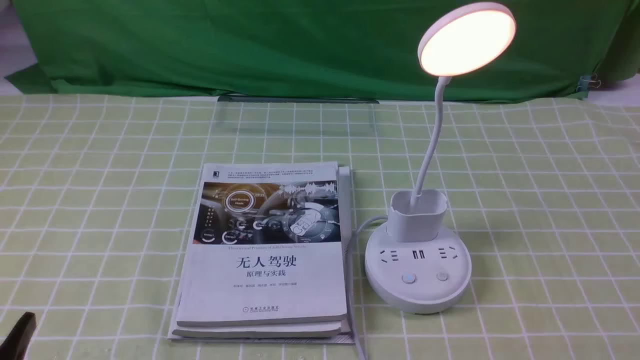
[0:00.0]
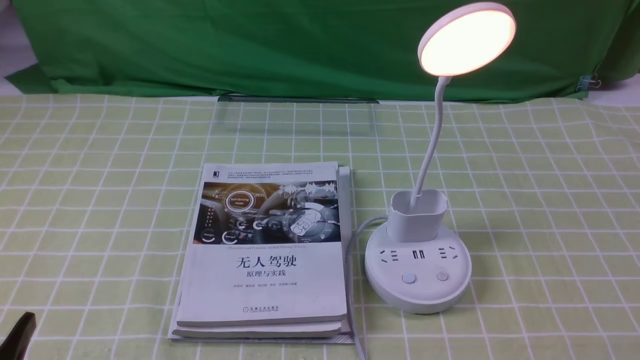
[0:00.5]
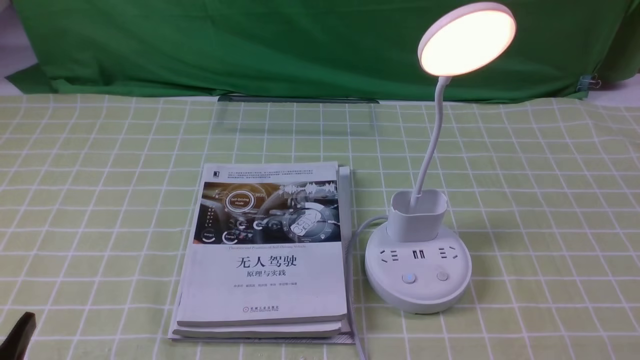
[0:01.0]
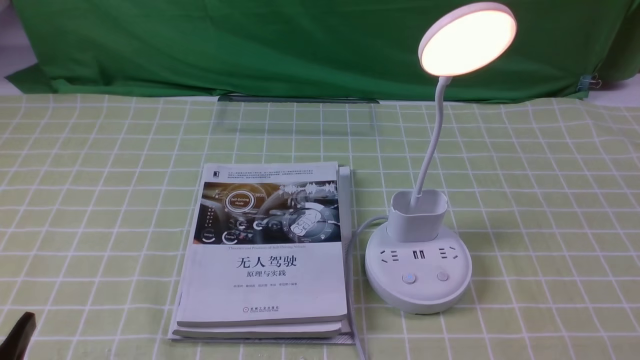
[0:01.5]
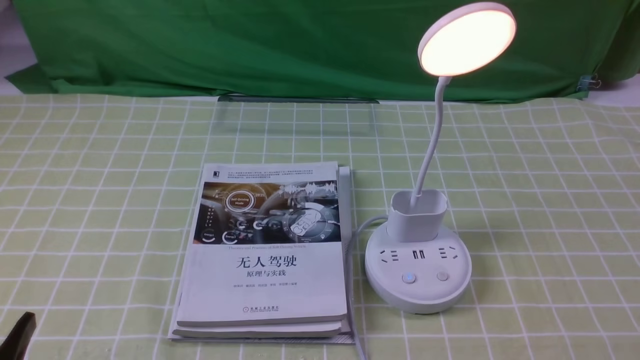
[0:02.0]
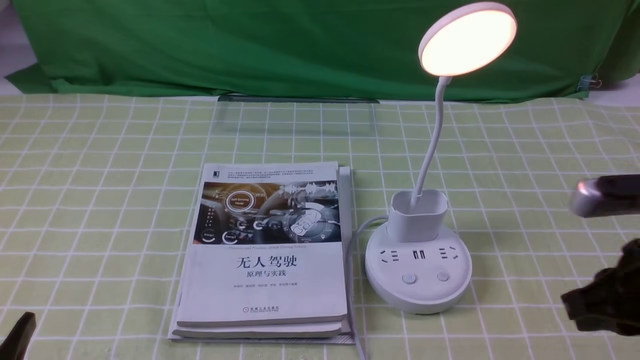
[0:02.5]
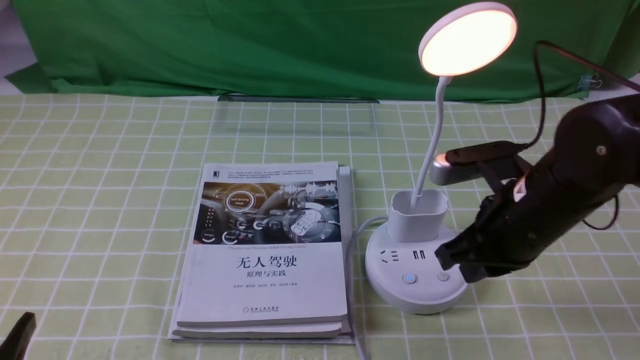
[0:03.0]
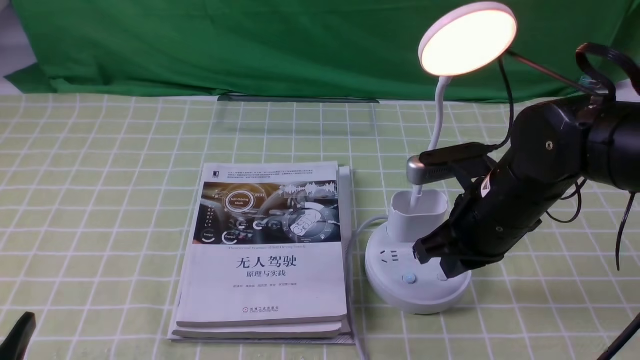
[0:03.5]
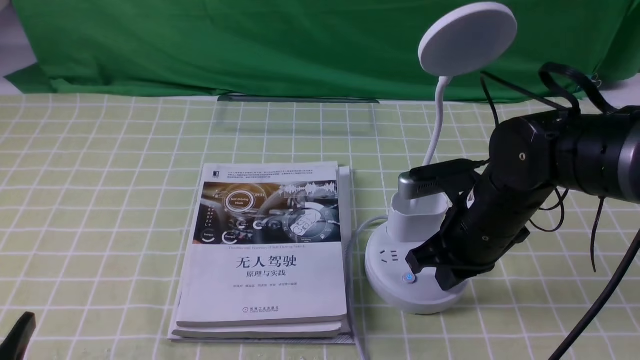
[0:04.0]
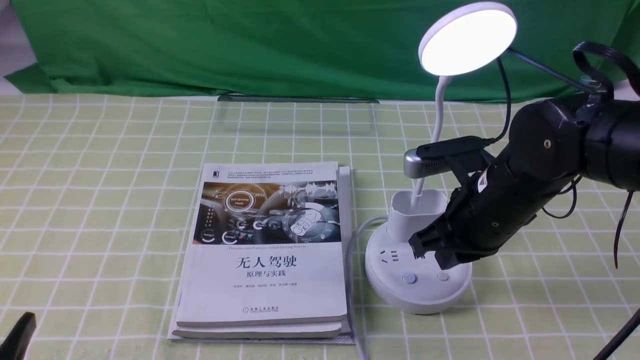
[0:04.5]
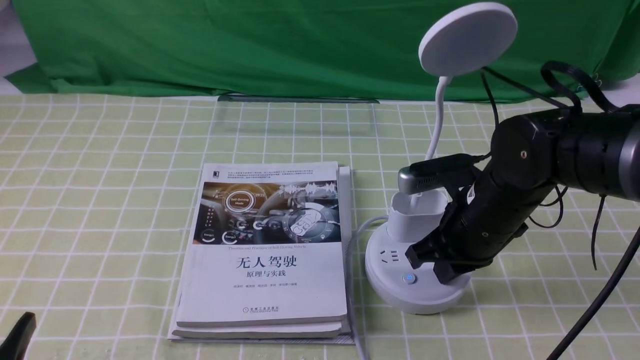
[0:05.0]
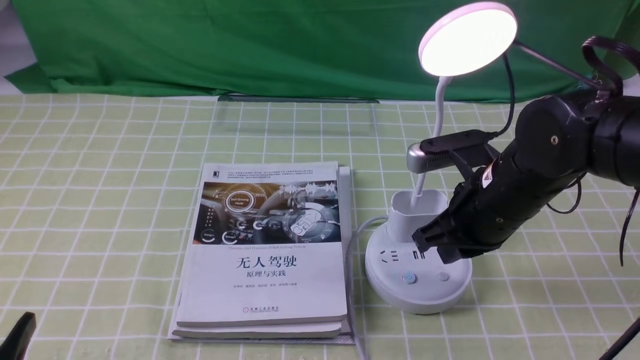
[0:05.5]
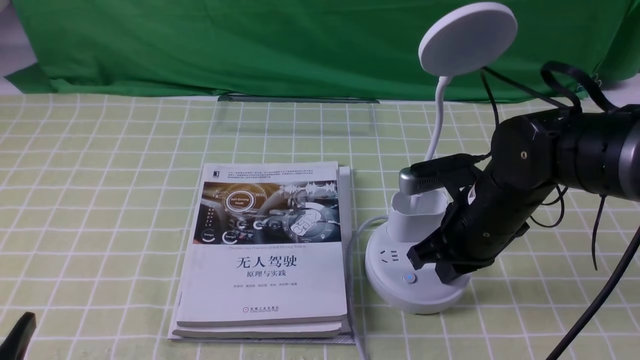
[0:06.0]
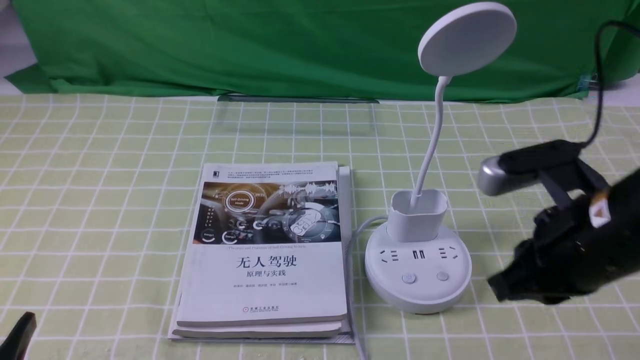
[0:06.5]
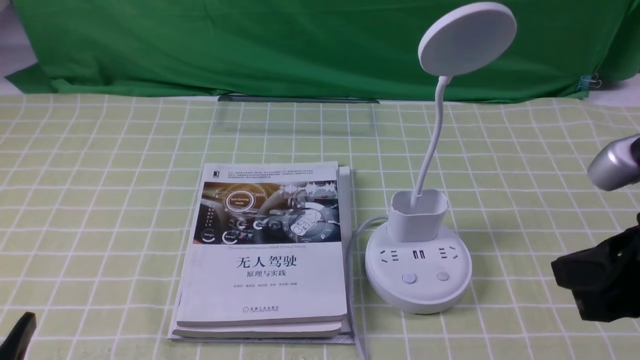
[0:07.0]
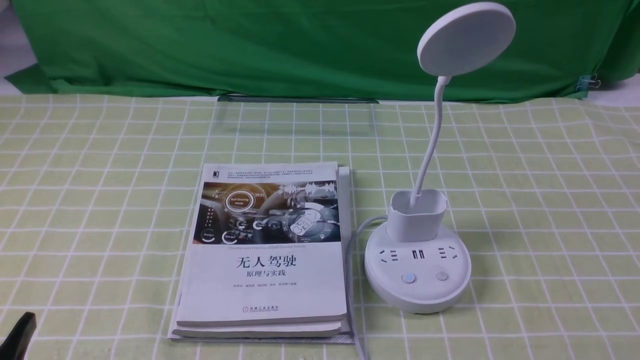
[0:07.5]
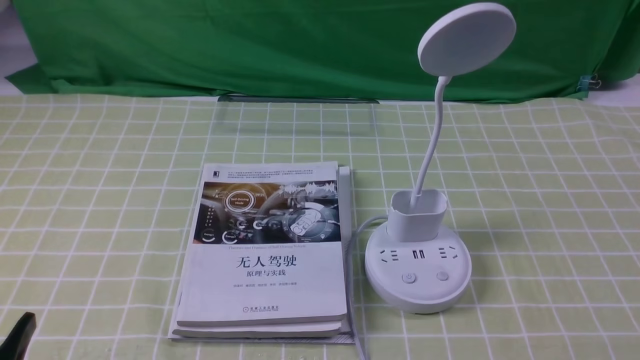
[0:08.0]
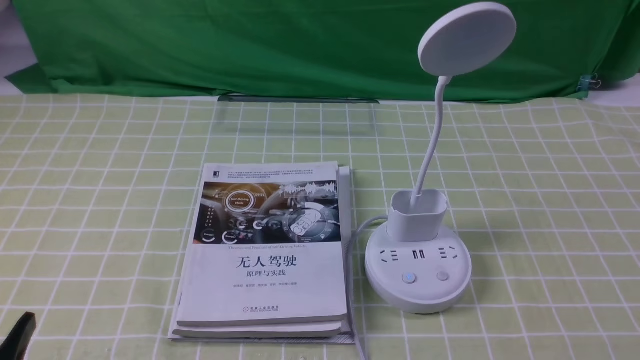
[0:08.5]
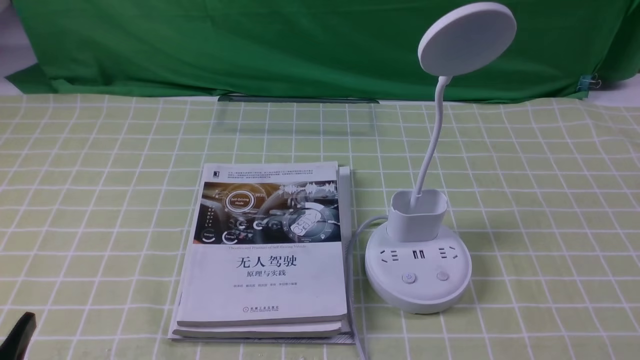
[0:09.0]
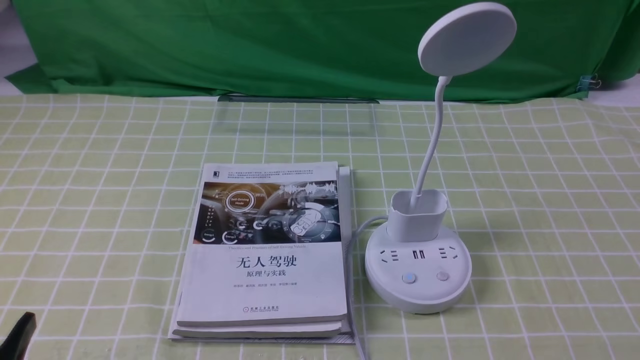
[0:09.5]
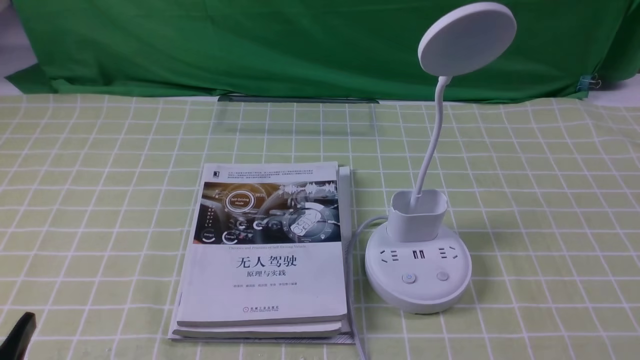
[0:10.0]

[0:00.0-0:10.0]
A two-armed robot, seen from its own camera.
Task of the whole recording: turn off the desk lamp on the green coffee tablecloth by hand.
Step, 0:00.0 to 0:06.0: use the right arm to press the button switch on the lamp holder.
0:02.0 to 0:04.0: The right gripper travels forward, to the left and downward by about 30 cm.
0:04.0 to 0:06.0: The grippers make only small movements.
0:06.0 to 0:08.0: The right gripper goes some 30 cm backward and to the right.

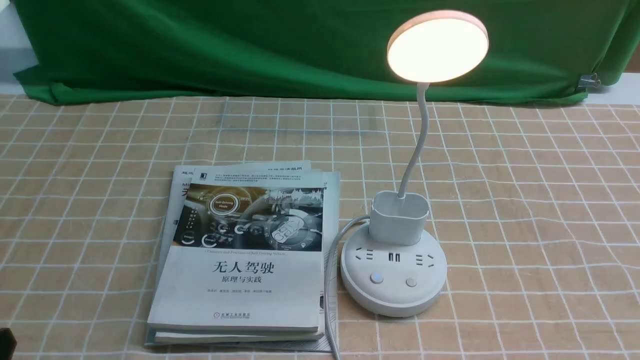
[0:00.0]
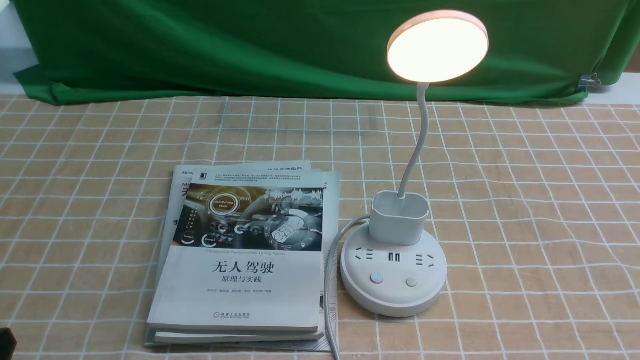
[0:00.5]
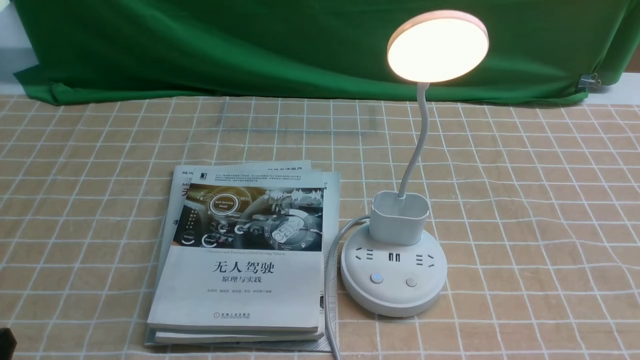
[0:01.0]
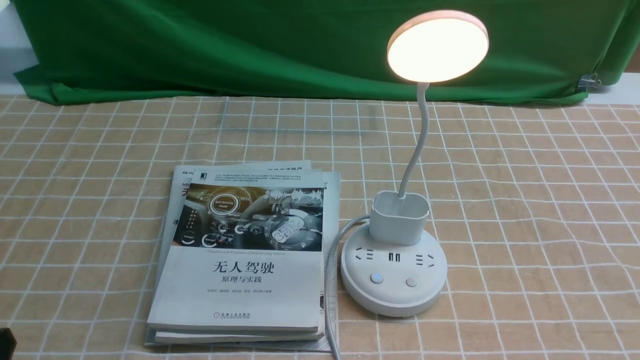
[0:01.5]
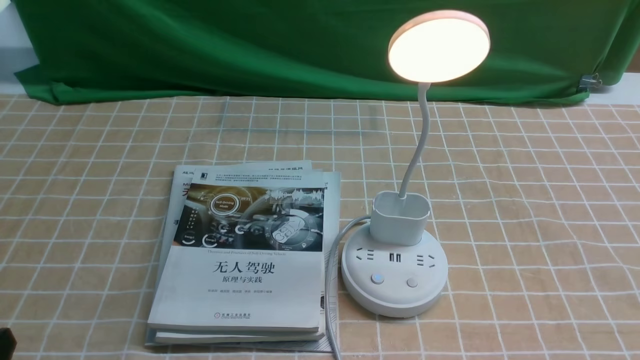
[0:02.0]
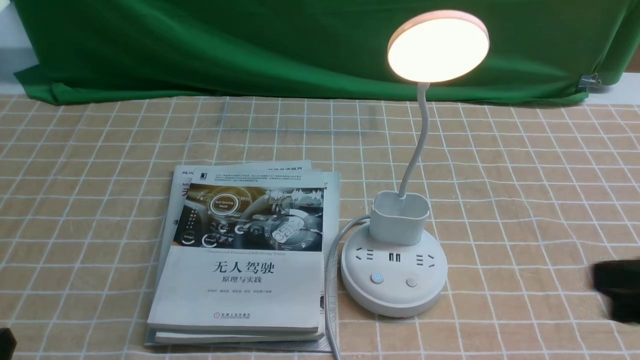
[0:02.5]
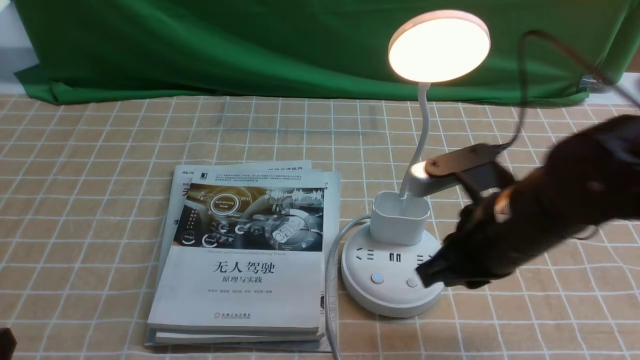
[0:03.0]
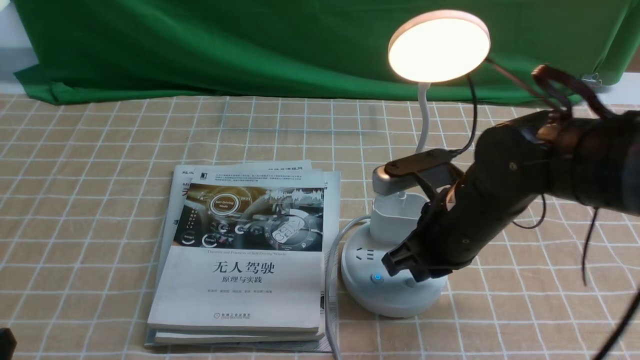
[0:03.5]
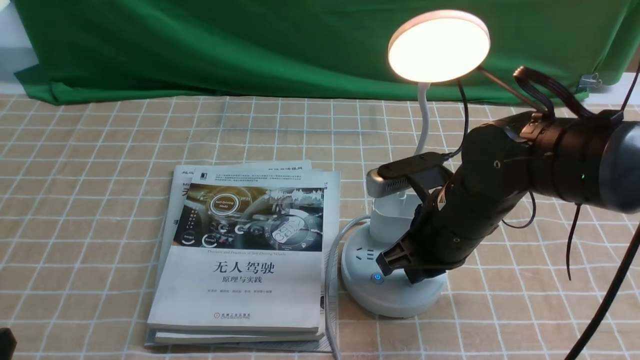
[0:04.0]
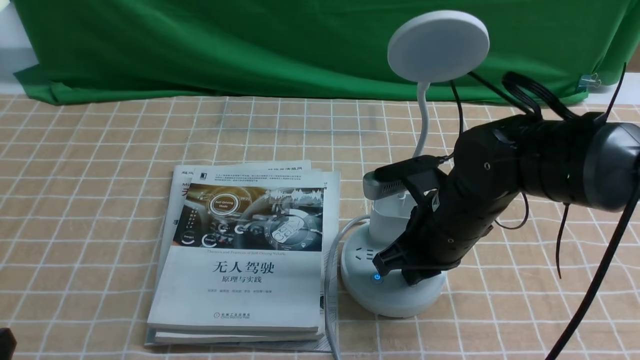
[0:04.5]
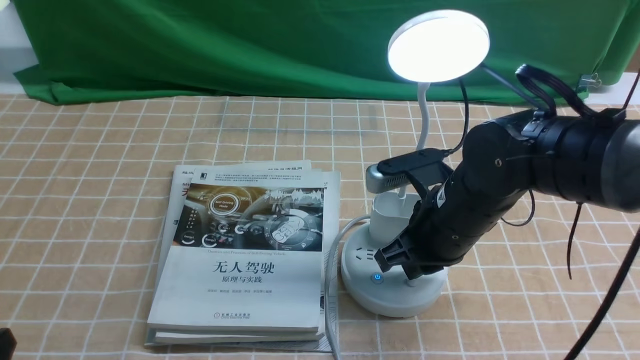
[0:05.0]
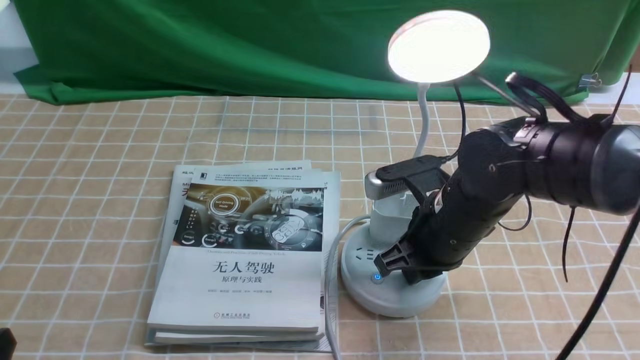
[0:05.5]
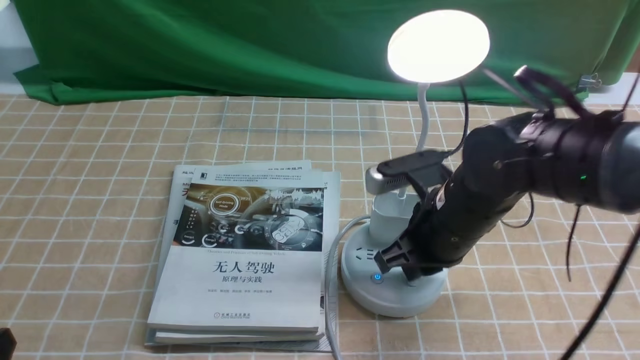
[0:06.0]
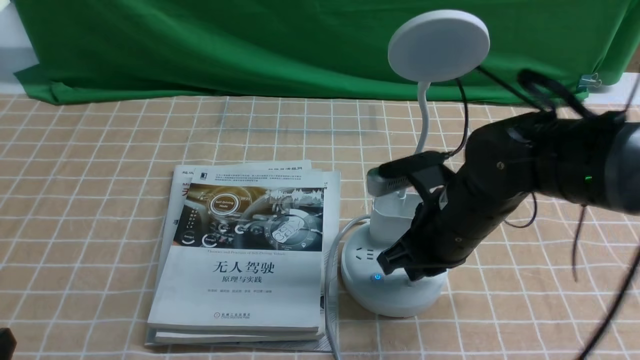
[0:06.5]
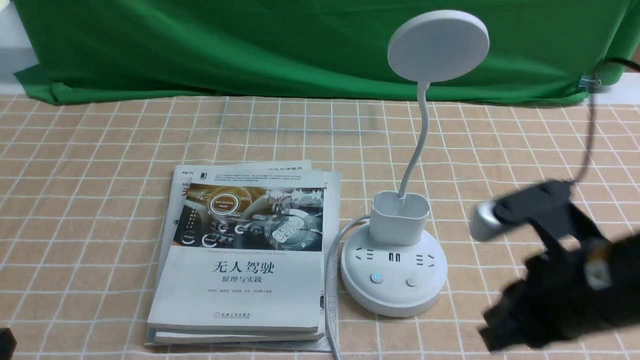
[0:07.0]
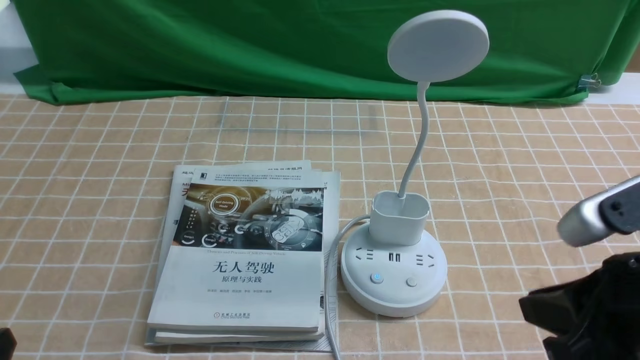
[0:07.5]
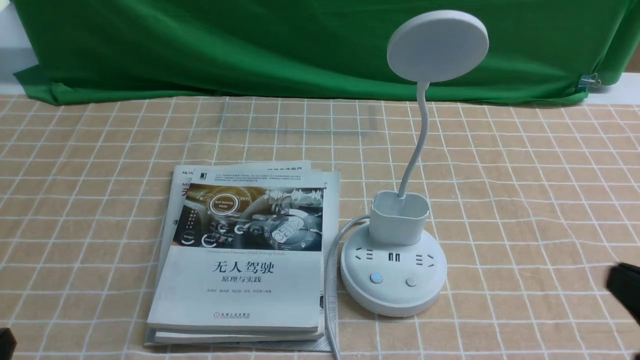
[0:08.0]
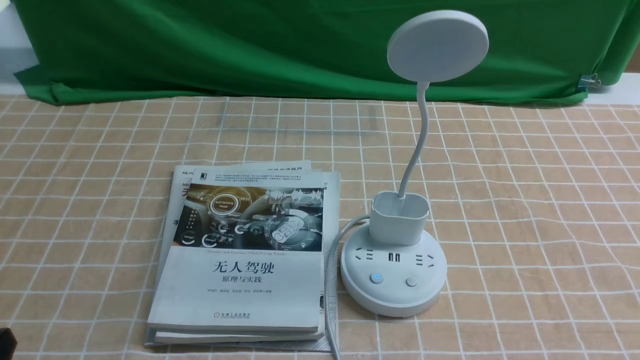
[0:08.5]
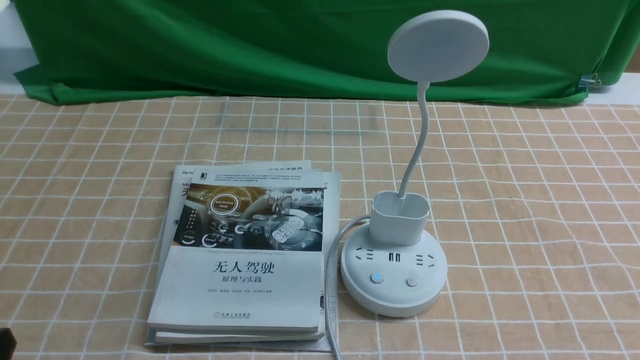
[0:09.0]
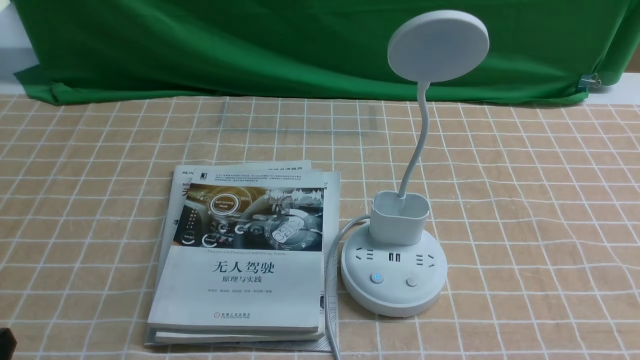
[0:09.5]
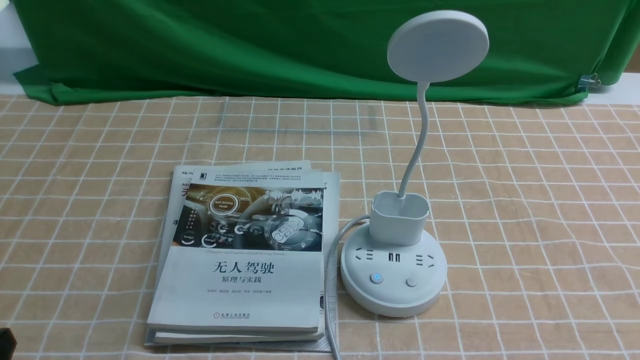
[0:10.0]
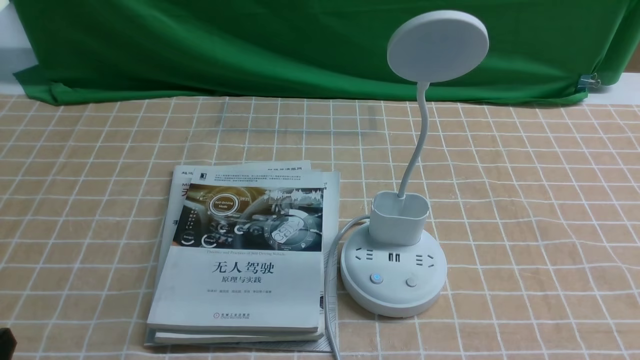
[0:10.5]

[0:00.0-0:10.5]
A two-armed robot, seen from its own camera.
Task of the whole recording: turn off the desk lamp on the light coffee tablecloth by hand.
Step, 0:00.0 to 0:06.5: use the right arm to press the button switch on the lamp holder.
0:02.0 to 0:04.0: The right gripper moves forward and to the left, roughly 30 cm, and closes its fingers.
0:04.0 to 0:06.5: The grippers move only a little.
0:06.5 to 0:08.5: The right gripper goes some 30 cm backward and to the right.
